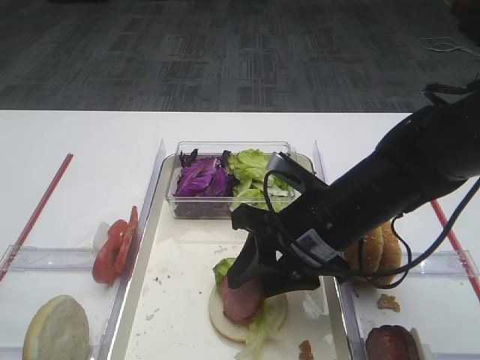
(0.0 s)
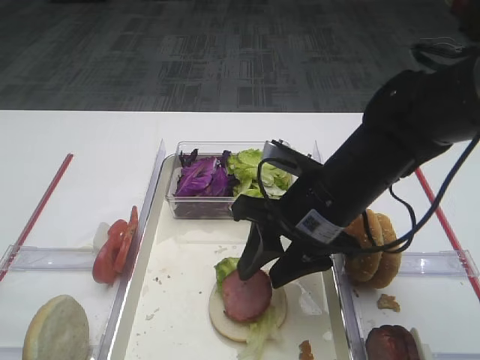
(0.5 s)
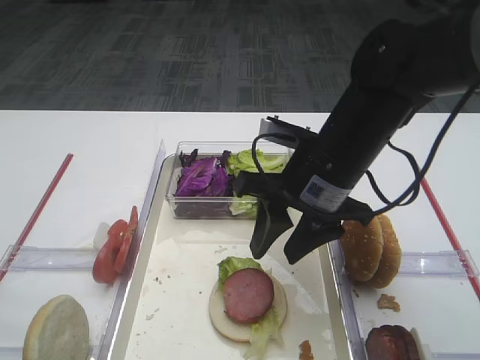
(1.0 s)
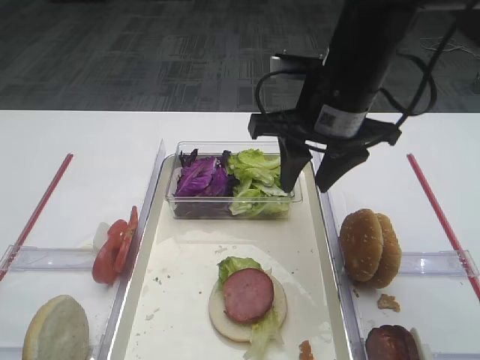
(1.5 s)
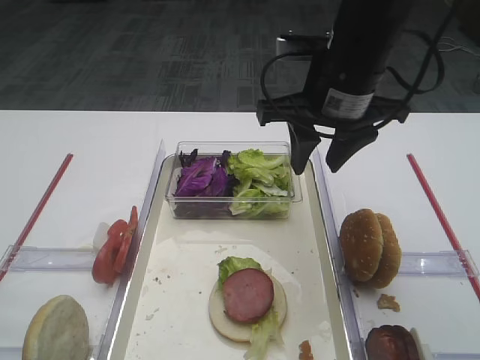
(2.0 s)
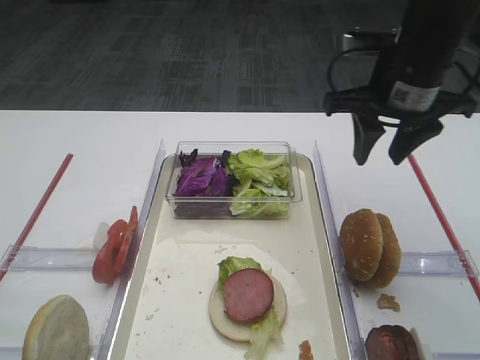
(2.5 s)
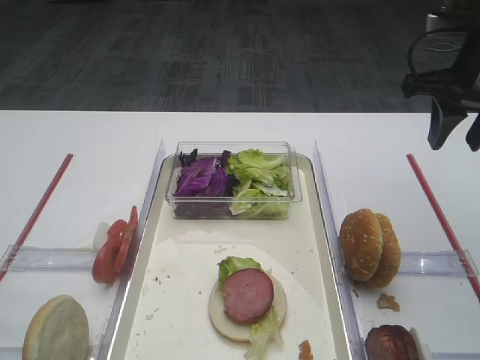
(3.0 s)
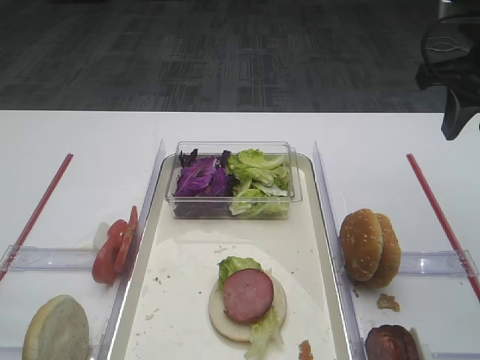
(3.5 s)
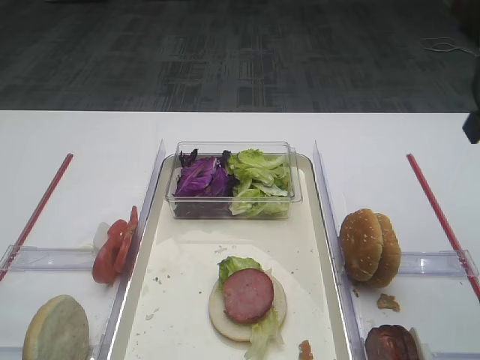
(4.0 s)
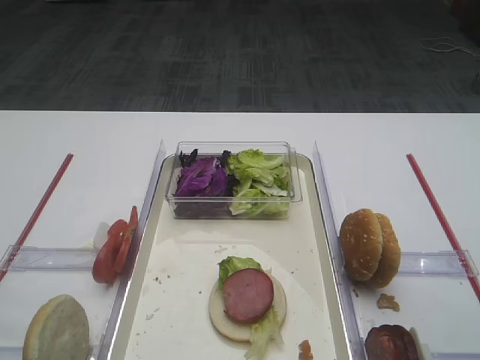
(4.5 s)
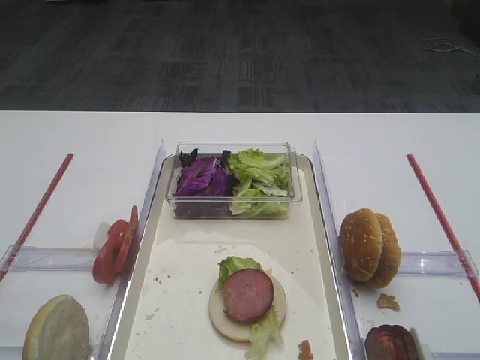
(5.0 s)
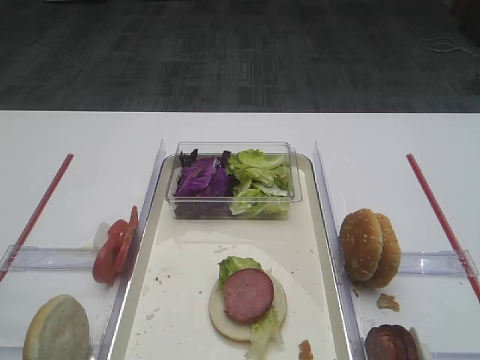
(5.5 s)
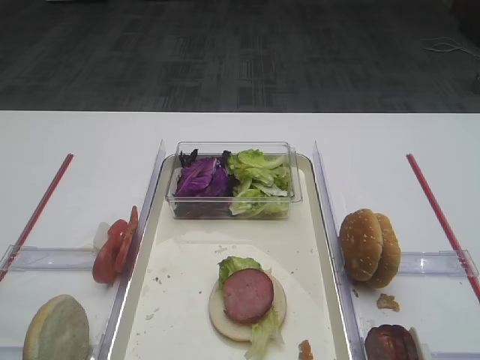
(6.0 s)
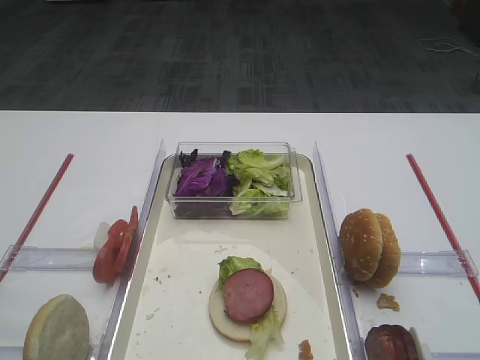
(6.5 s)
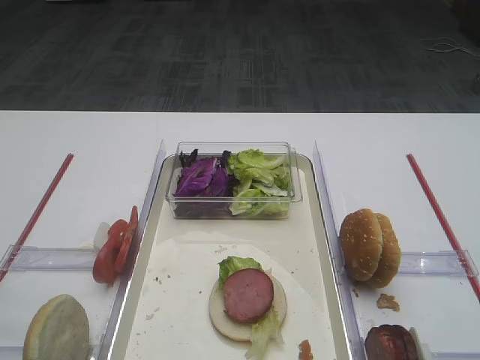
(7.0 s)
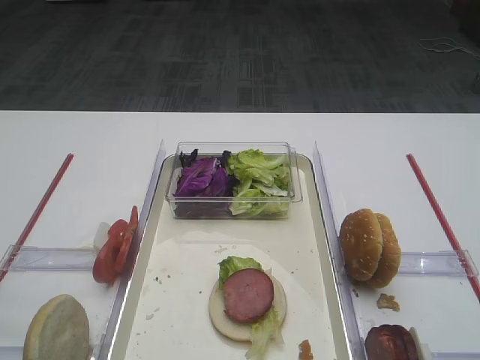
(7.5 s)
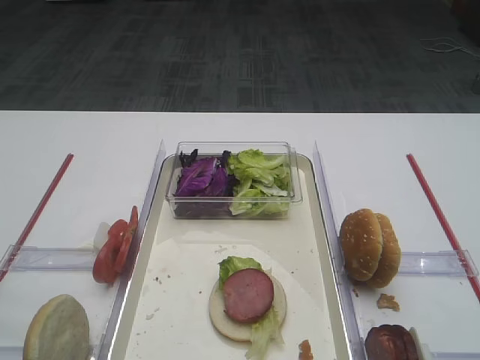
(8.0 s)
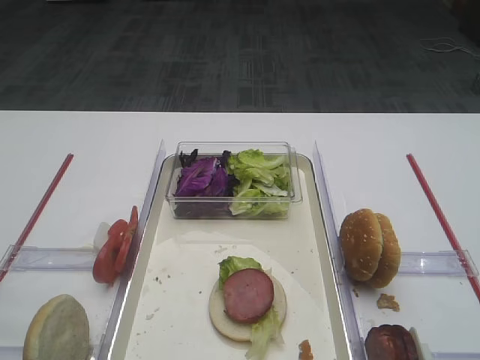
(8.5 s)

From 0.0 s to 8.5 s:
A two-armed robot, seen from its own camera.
From 0.0 s to 2.0 s: The right gripper shifts about 15 cm upward and forward.
From 2.0 s to 4.0 s: The right gripper travels to the right and backward by about 20 cm.
